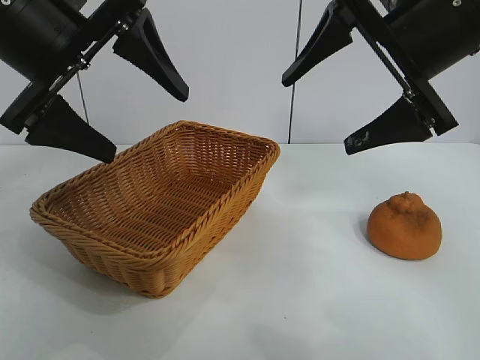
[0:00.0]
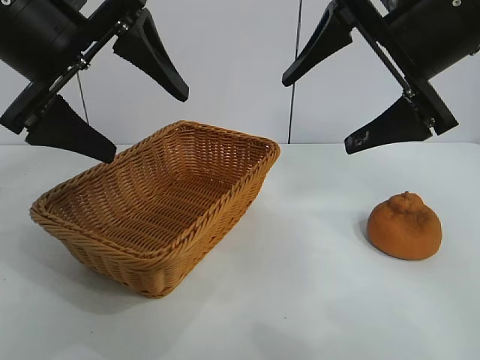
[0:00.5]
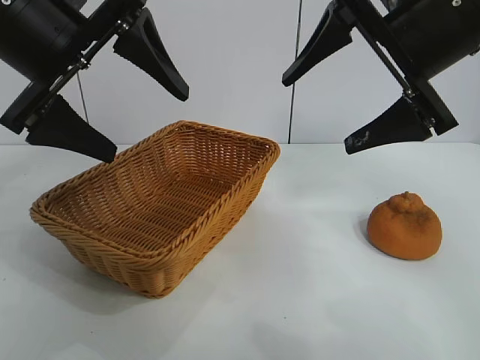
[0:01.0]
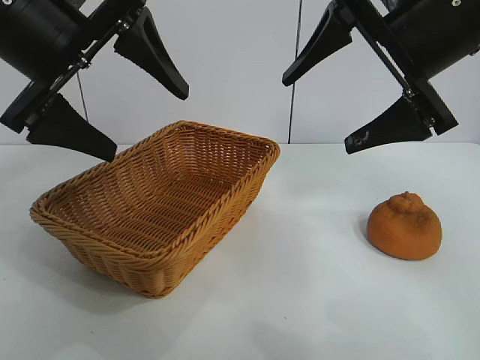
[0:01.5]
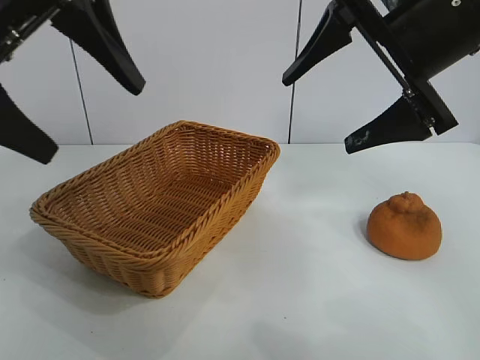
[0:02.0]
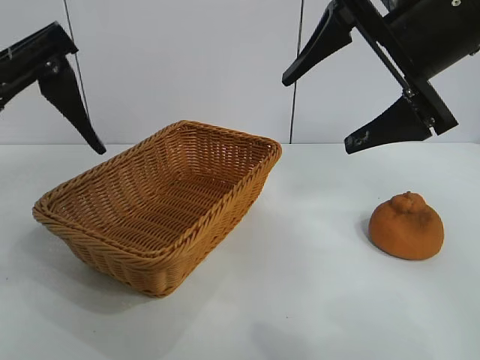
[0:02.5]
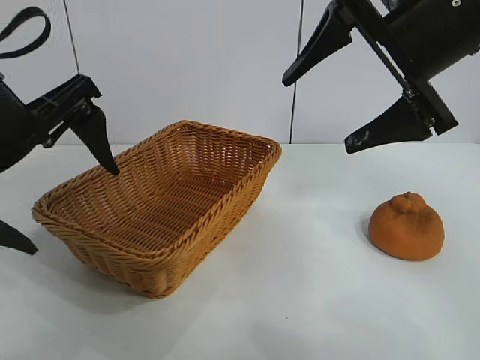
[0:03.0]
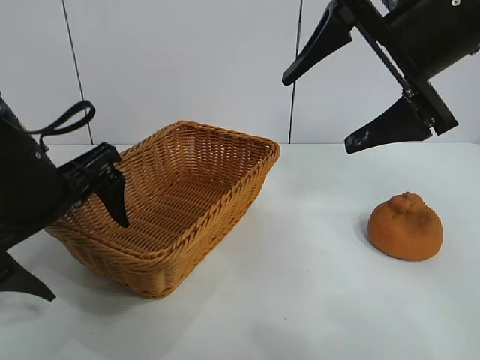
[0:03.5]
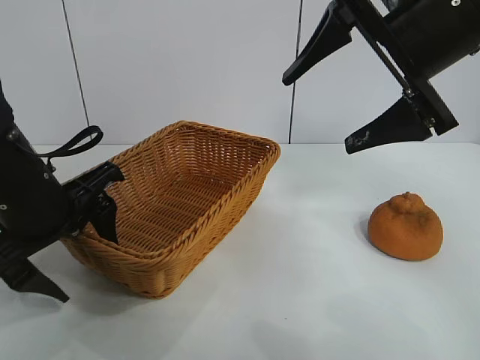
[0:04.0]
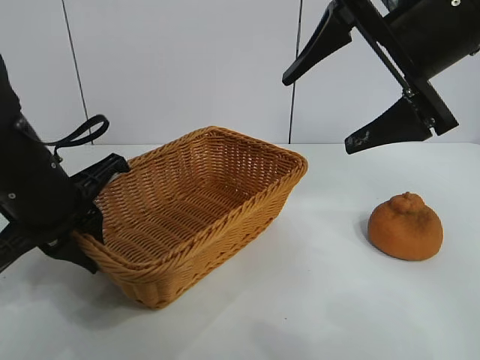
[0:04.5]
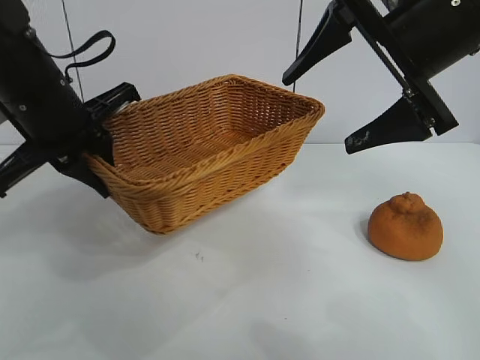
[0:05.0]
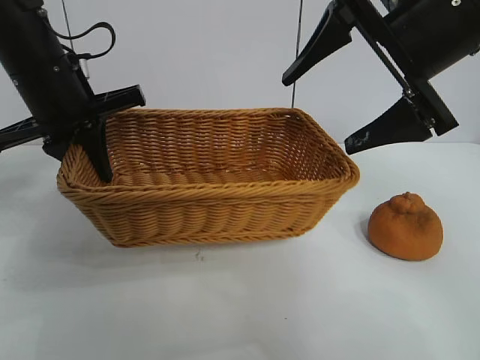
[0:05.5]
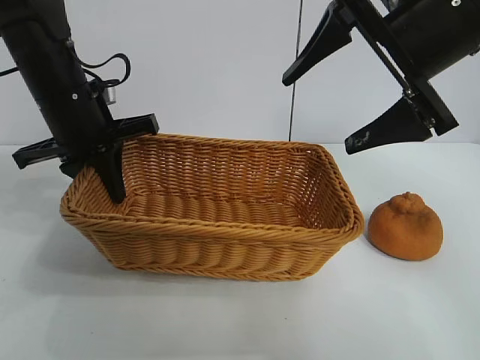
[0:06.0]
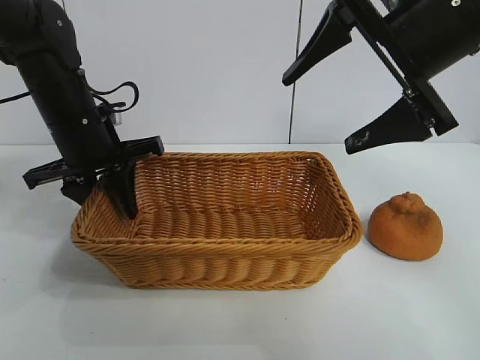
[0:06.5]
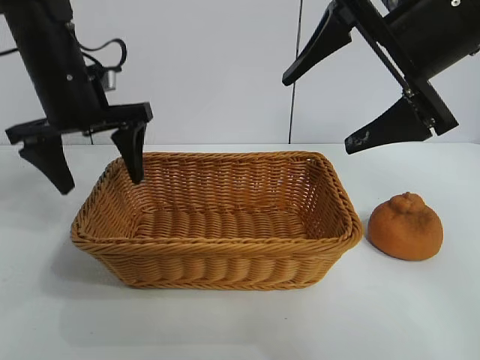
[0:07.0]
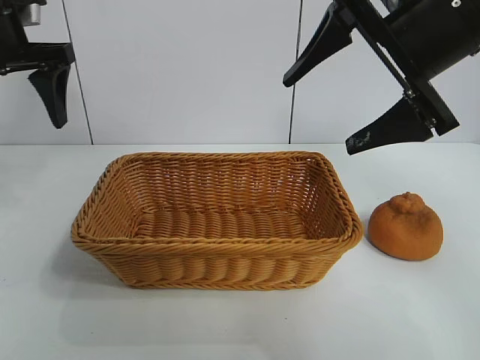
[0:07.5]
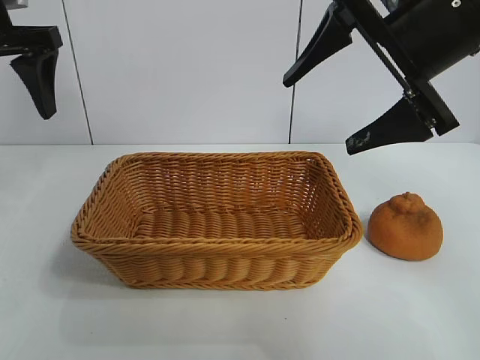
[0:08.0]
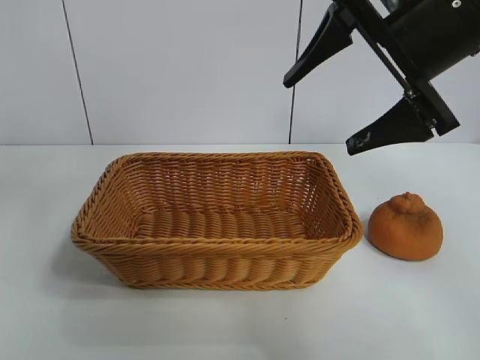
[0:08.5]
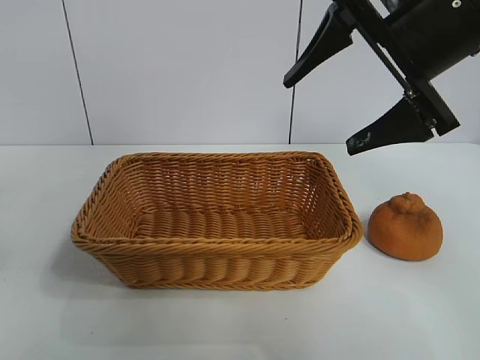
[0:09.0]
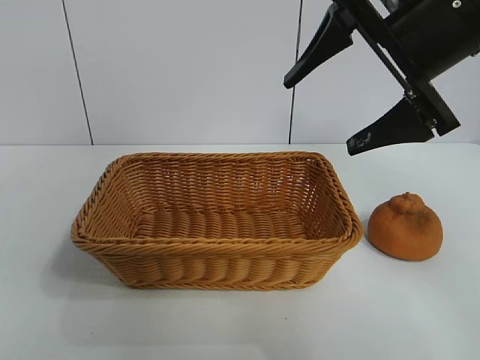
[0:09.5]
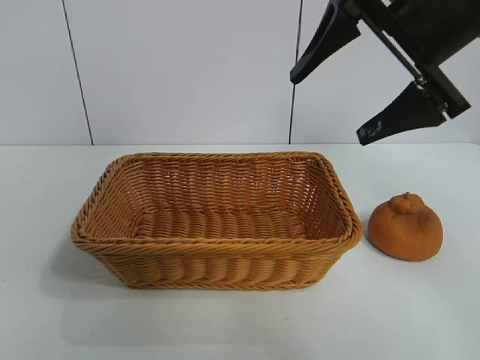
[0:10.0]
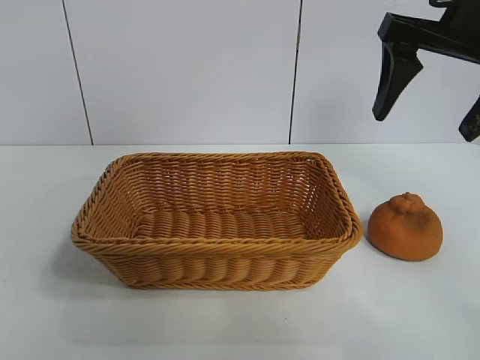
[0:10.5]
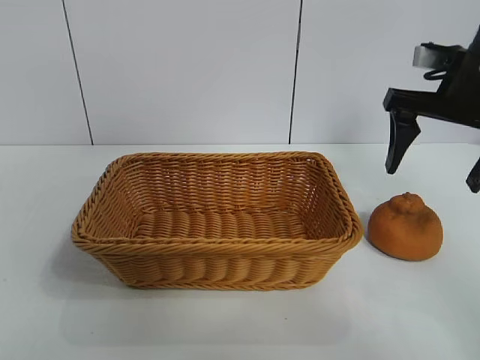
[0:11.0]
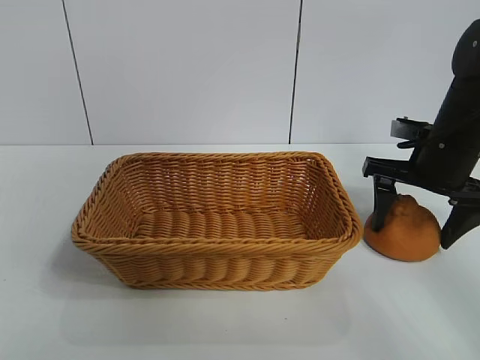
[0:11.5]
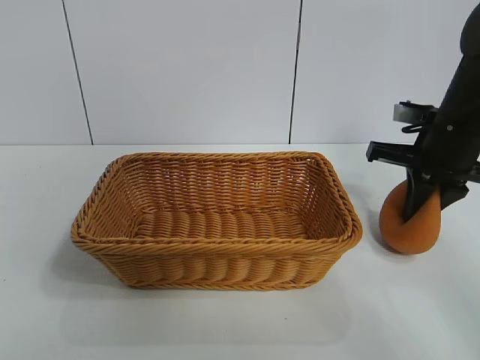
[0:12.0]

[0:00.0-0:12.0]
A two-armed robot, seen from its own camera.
Task of the whole recording: pick up the orange and put it into the basket.
Step, 0:01.5 to 0:04.0: Grasp the basket with left gripper.
Step, 0:04.5 to 0:06.5: Place the basket in the center of view with left gripper.
Step, 0:07.0 to 0:12.0: Grasp the orange with right gripper.

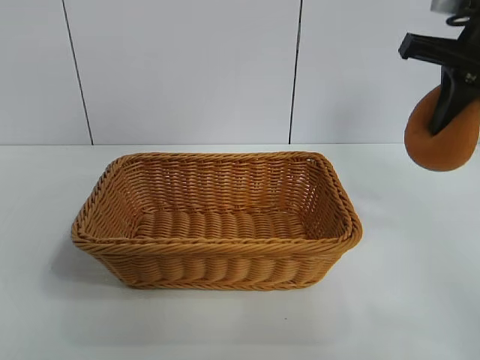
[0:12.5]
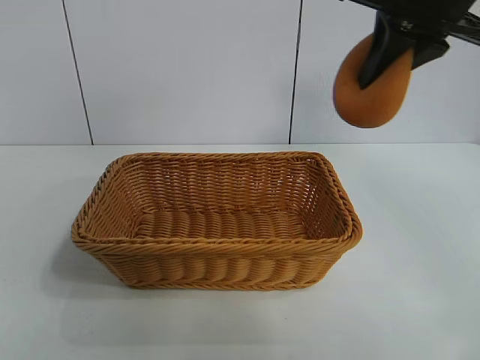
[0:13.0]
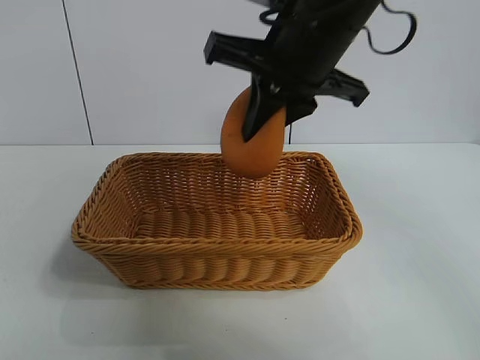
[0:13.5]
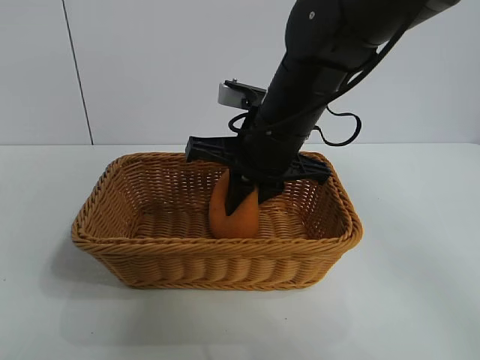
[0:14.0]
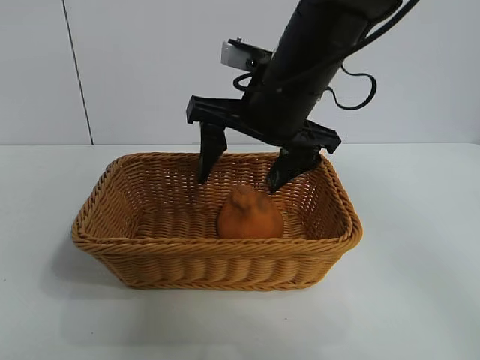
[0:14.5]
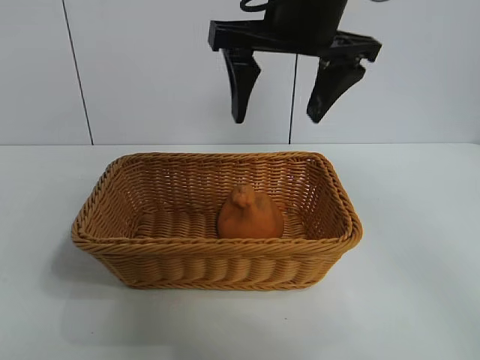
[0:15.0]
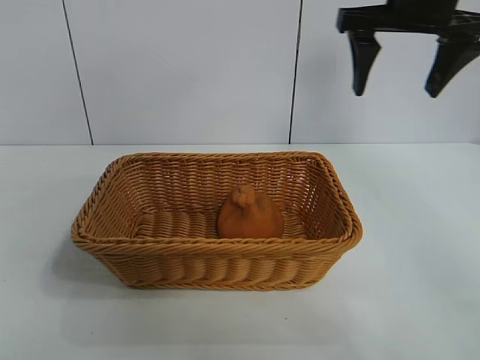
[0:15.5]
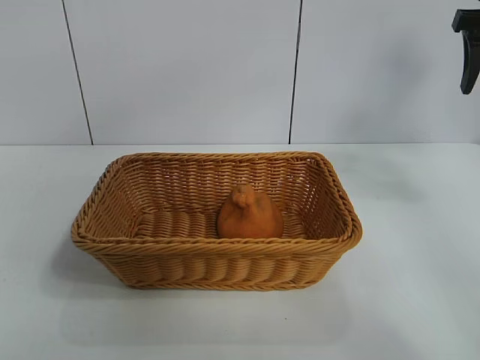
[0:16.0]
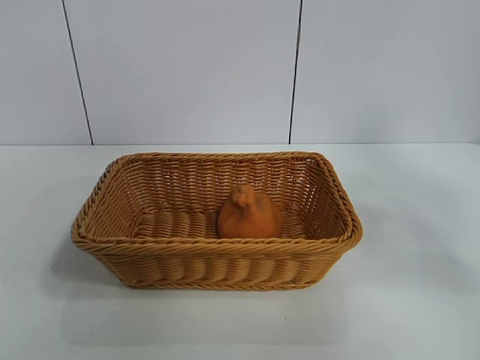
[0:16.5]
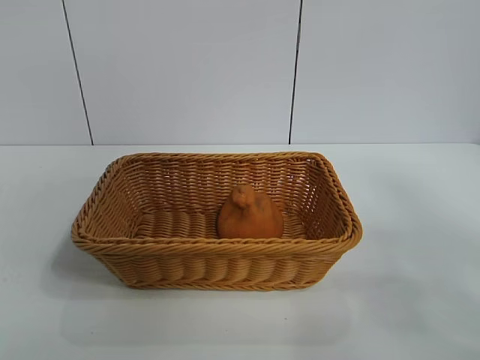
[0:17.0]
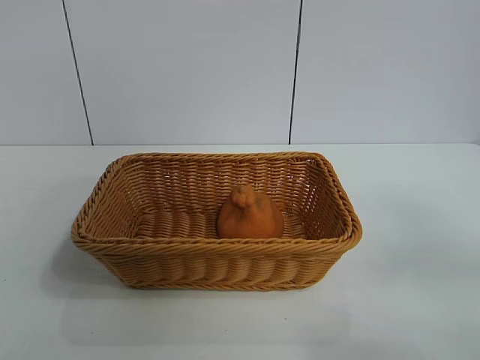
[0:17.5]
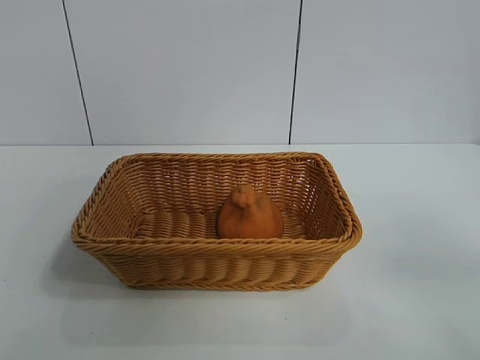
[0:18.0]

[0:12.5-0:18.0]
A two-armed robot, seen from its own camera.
Task of the whole recording: pick up the orange and put it into the basket.
Step, 0:12.5 to 0:14.0: Place the orange in the basket with right gripper.
